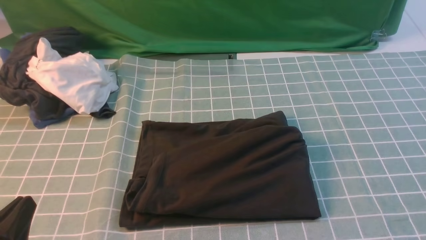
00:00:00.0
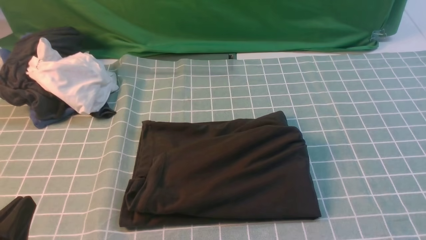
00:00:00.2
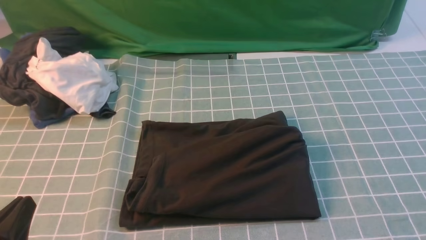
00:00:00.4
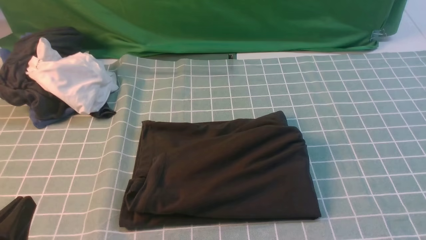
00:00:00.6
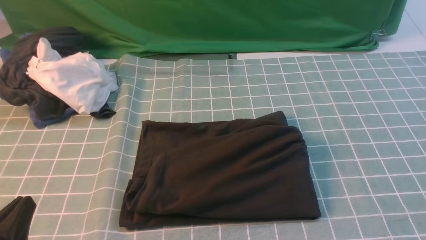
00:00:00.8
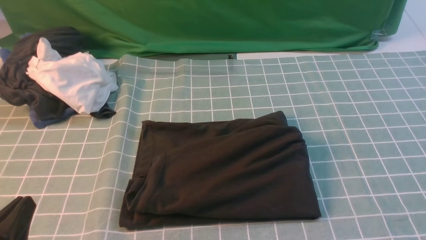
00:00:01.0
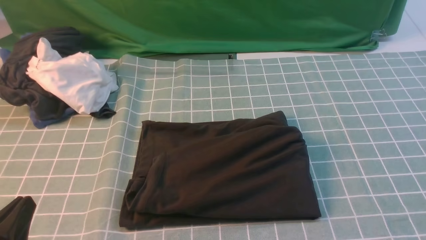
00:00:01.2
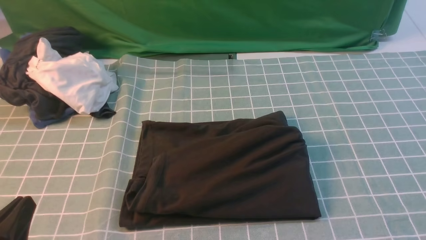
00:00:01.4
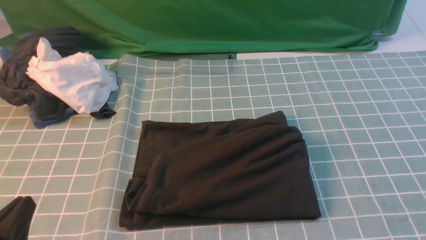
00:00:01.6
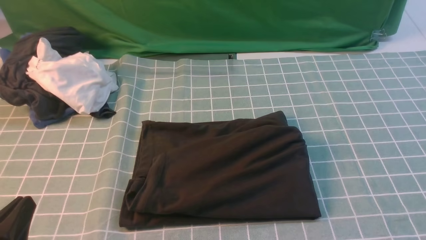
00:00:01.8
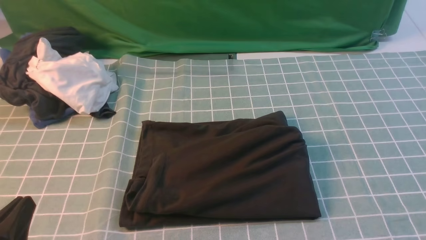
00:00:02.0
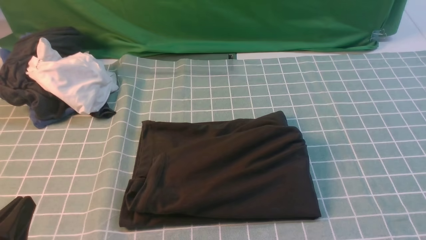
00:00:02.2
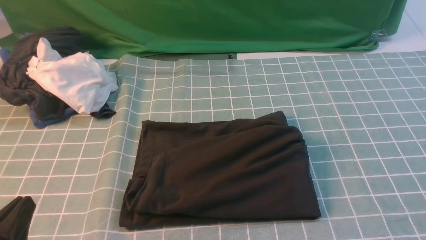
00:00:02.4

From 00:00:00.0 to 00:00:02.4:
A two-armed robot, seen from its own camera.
From 00:00:01.2 to 00:00:02.4: Both grippers stay put.
